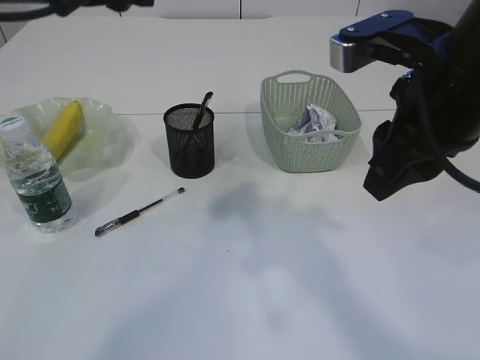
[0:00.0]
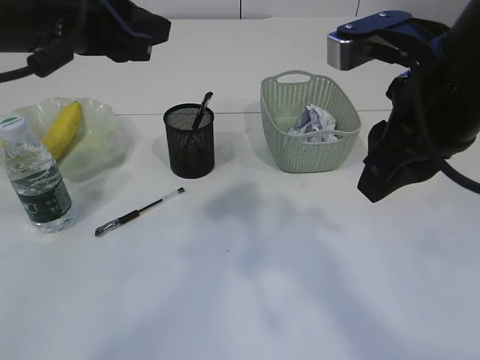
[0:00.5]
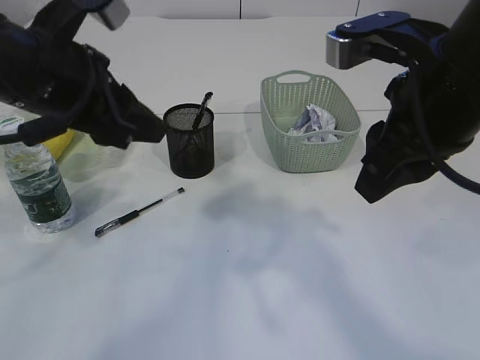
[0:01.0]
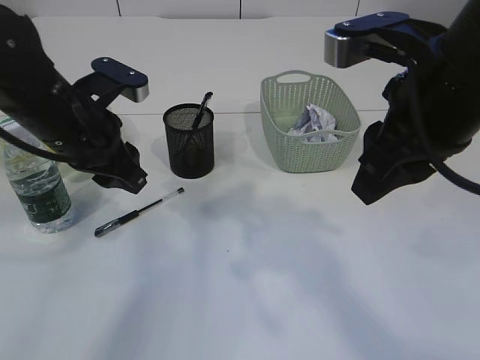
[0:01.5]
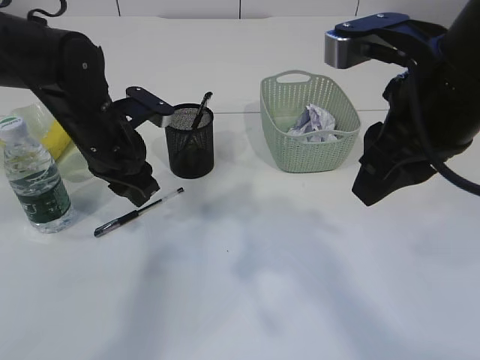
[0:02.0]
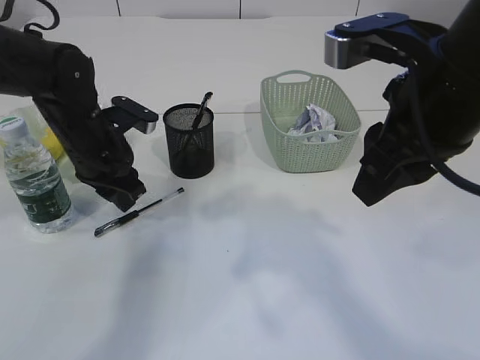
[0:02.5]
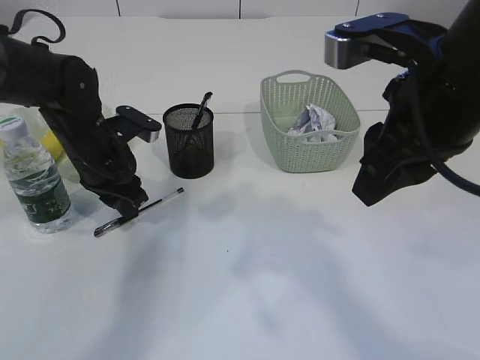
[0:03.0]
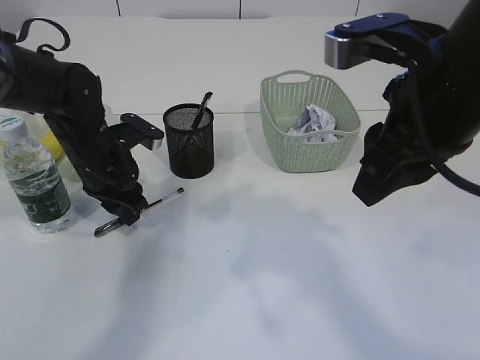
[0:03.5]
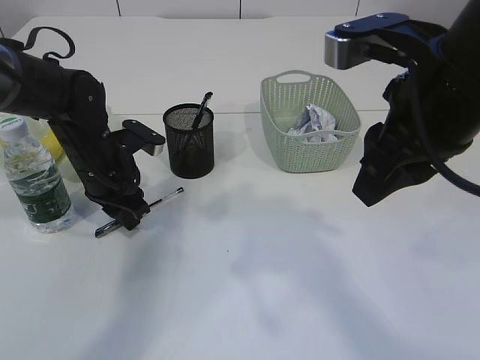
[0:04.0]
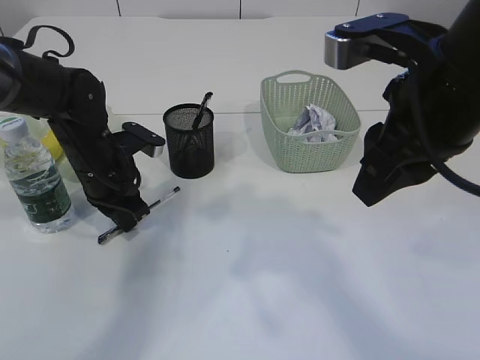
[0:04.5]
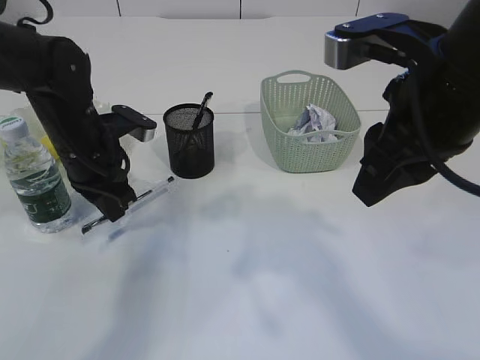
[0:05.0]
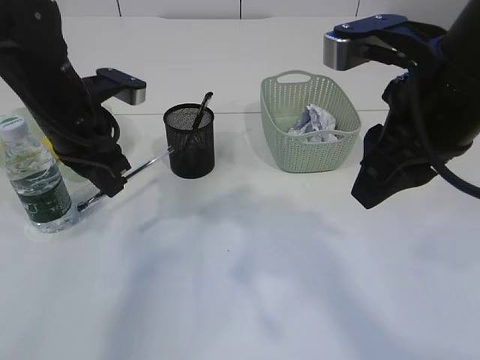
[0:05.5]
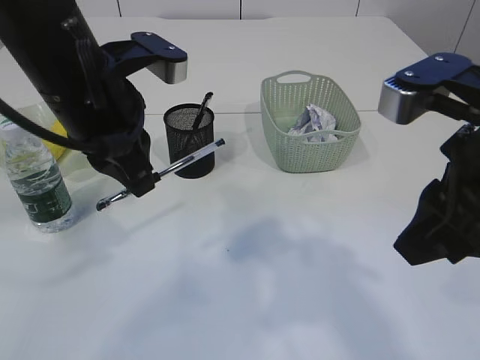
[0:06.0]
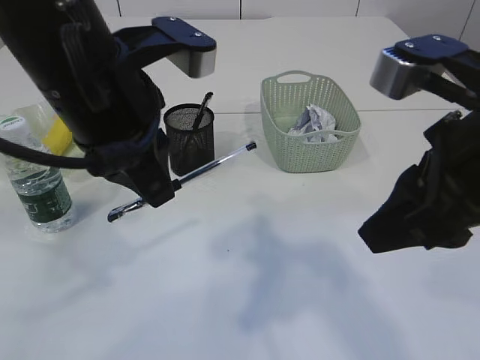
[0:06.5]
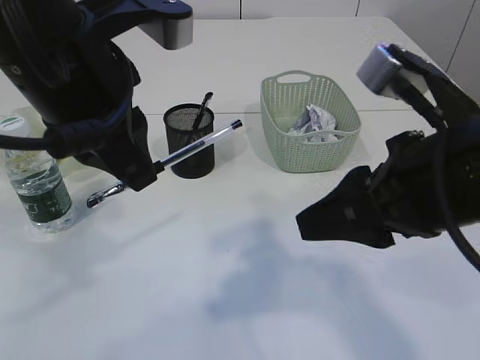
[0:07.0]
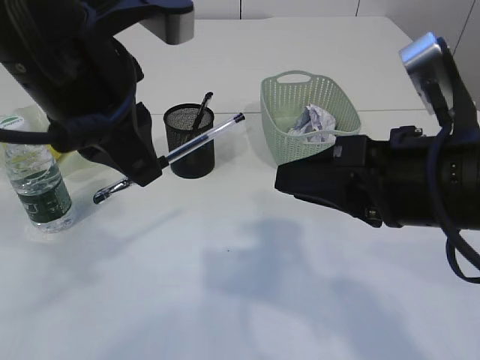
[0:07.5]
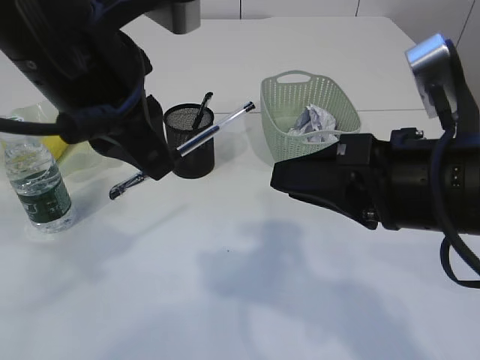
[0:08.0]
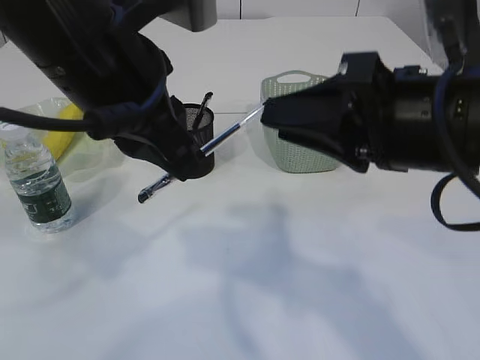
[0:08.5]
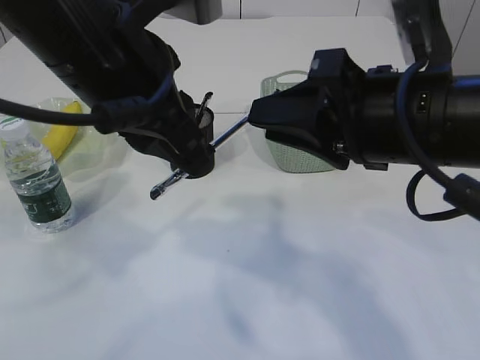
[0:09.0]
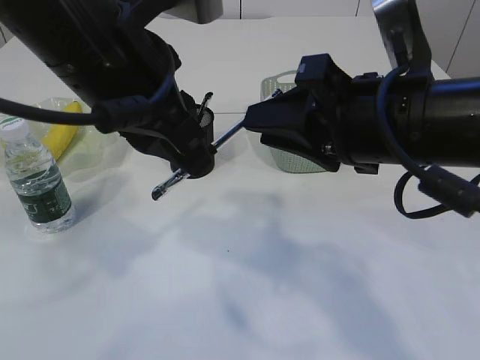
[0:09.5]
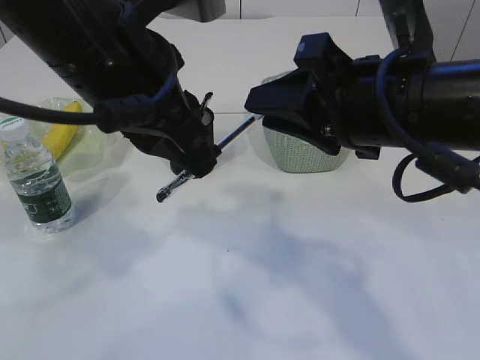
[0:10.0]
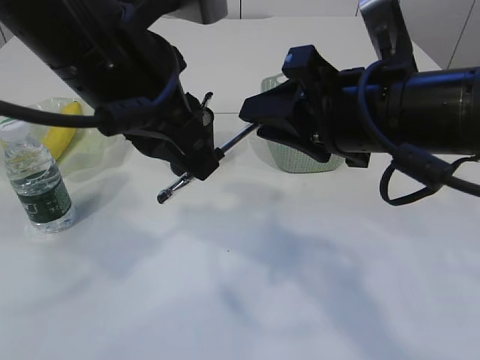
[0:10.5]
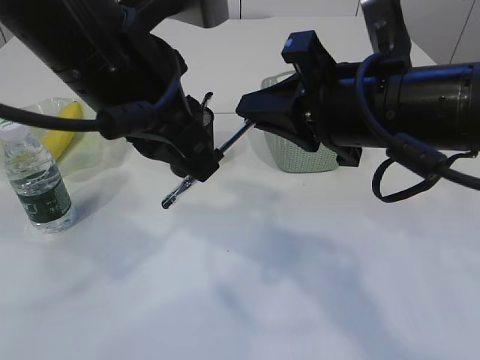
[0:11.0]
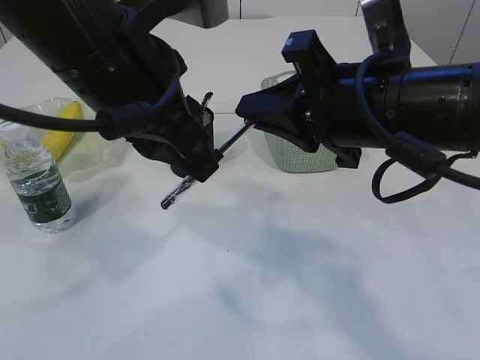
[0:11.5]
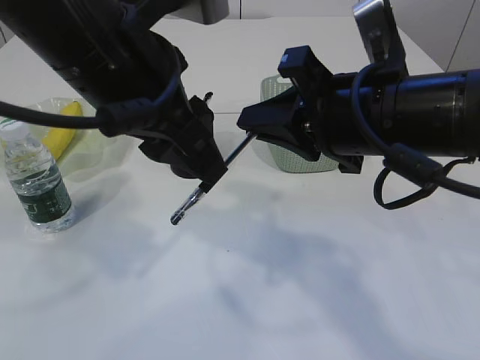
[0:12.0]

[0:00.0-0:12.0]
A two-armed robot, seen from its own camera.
Step, 0:00.0 to 0:05.5: Pick up the pen with left arm.
0:00.0 to 0:02.0: The left gripper travels downward by about 15 cm.
0:02.0 to 0:04.0: The left gripper shifts approximately 5 cm downward.
0:04.0 to 0:06.0: The left gripper goes about 20 cm upward and backward, and closes its fingers; the right gripper heads backward, covering some 5 cm.
0:06.0 to 0:08.0: The right gripper changes place by roughly 5 cm. The left gripper goes some 10 cm backward and upward.
0:08.0 to 0:10.0: The right gripper heads forward, covering some 5 cm.
0:10.0 to 0:12.0: The left gripper opens.

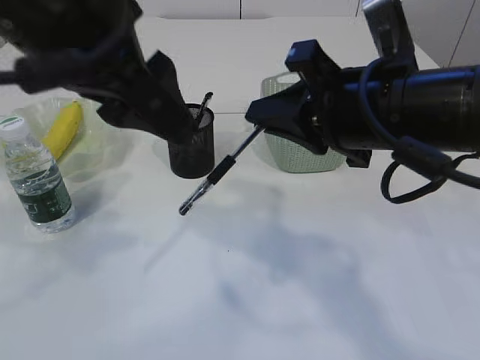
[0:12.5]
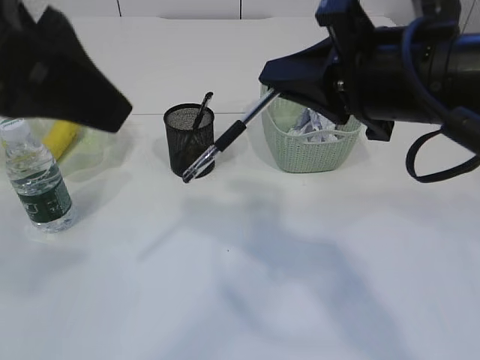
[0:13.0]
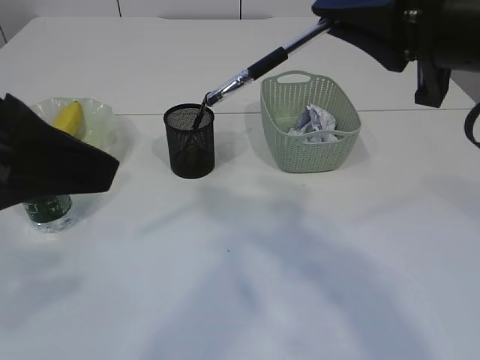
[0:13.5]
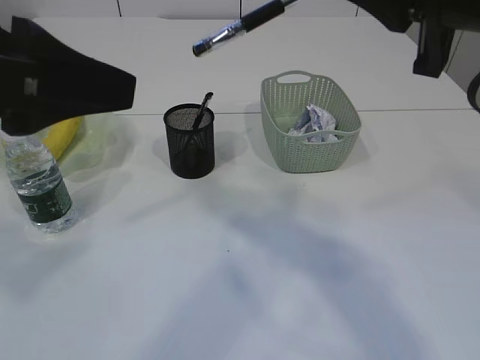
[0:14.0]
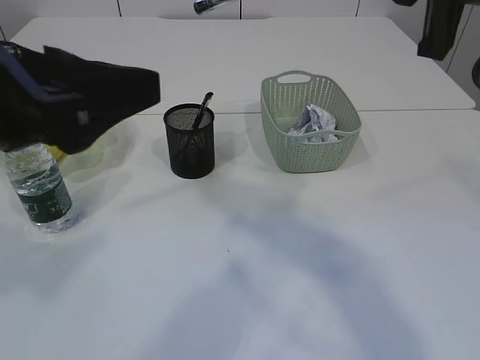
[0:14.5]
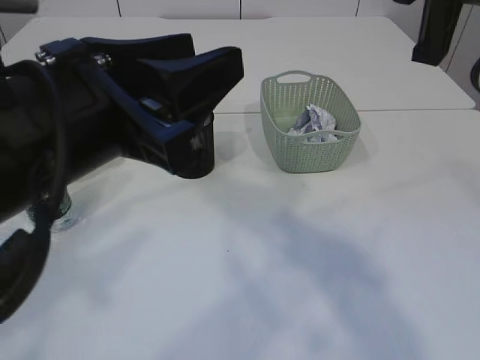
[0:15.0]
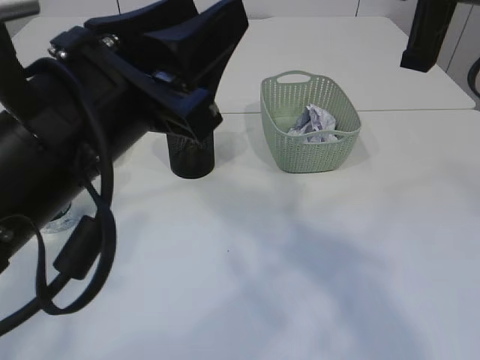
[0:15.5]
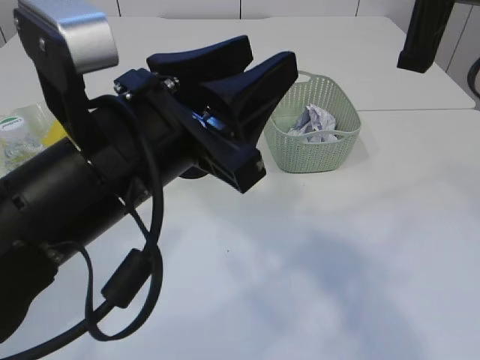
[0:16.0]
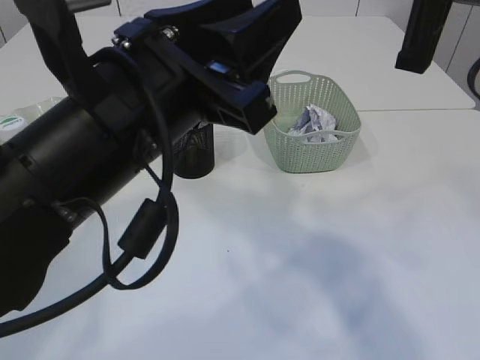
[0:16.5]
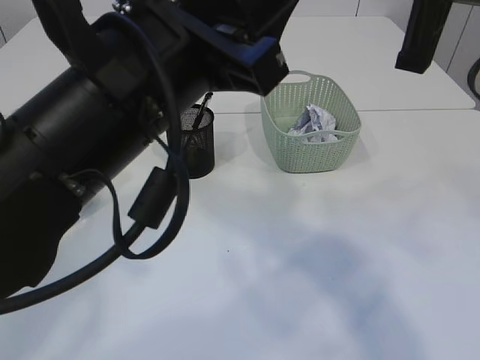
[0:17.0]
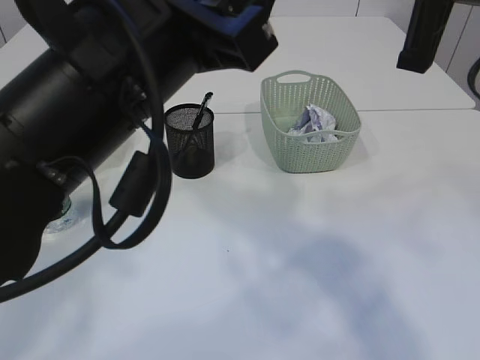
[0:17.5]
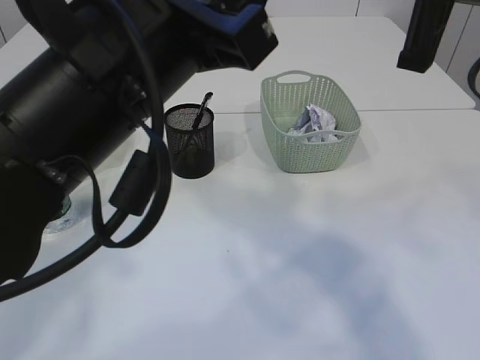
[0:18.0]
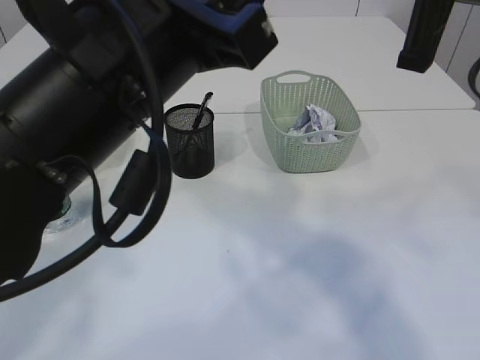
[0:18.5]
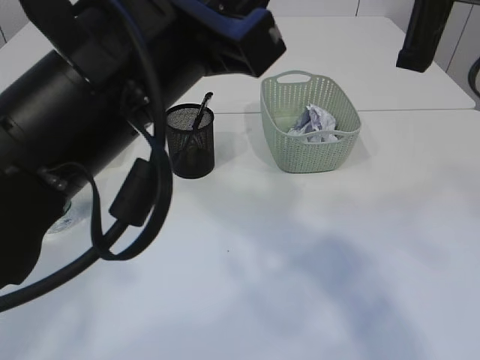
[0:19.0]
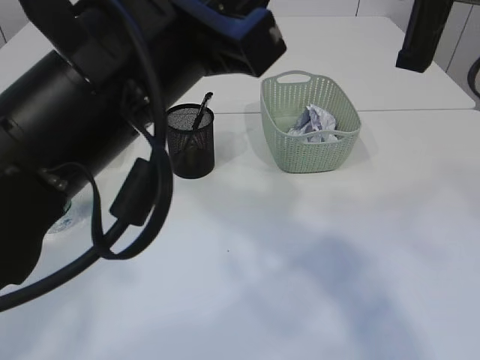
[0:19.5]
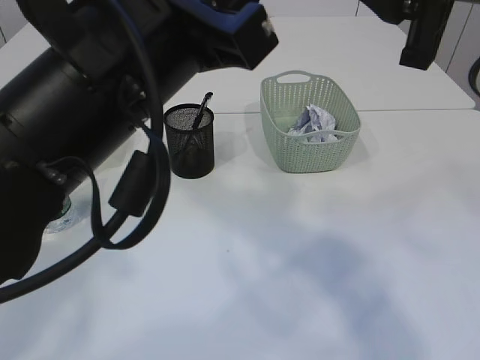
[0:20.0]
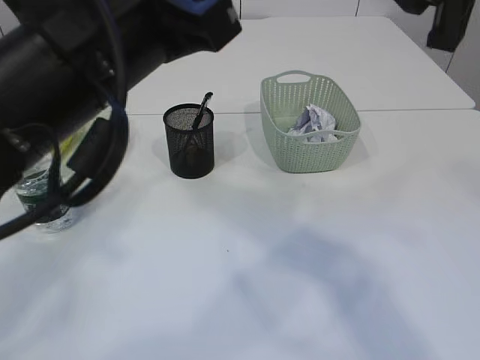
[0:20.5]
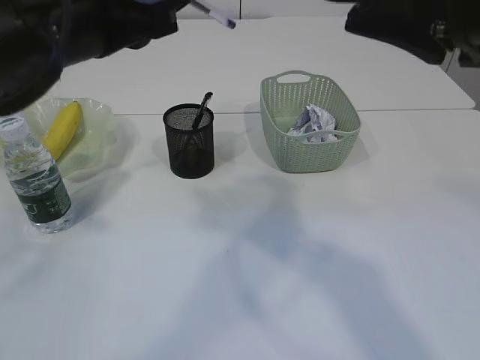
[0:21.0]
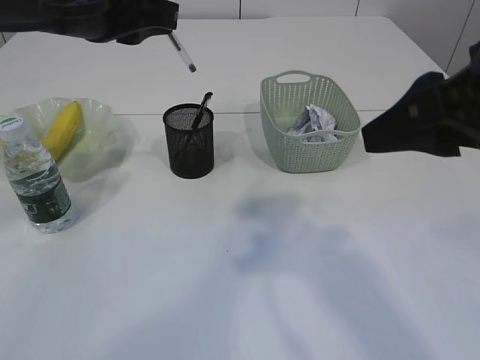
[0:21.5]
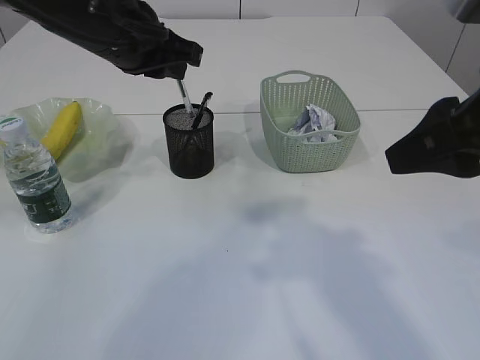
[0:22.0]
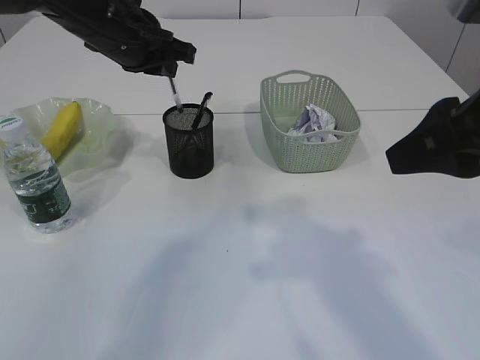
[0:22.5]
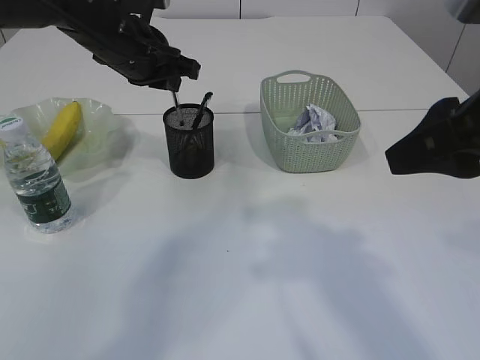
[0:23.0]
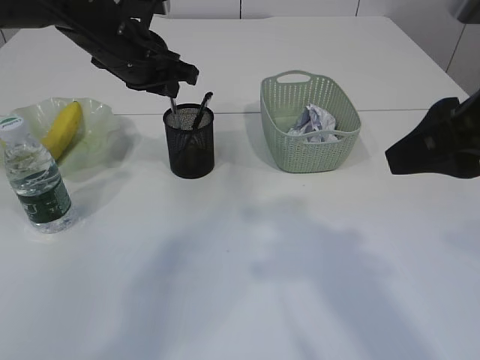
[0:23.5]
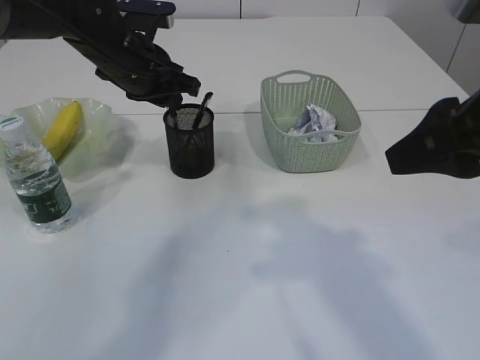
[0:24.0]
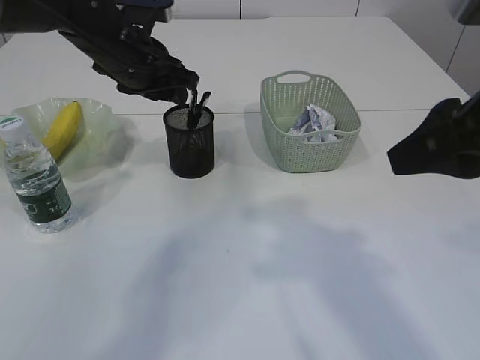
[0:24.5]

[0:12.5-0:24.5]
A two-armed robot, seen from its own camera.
Step, 0:13.0 to 0:20.5: transfer the pen to the left arm.
0:12.5 to 0:14.5: The left gripper is displaced backward and to the left by about 10 cm. The right gripper goes roughly 10 cm upward.
0:14.5 to 0:16.5: The left gripper goes some 10 cm to the right.
0:16.5 to 0:18.5: The grippers move only a little.
0:18.5 to 0:20.5: The right gripper opens.
0:20.5 to 0:22.5: The left gripper shifts some 20 cm forward. The right gripper travels downward by some 5 cm.
0:22.5 to 0:24.5: The left gripper opens its fingers.

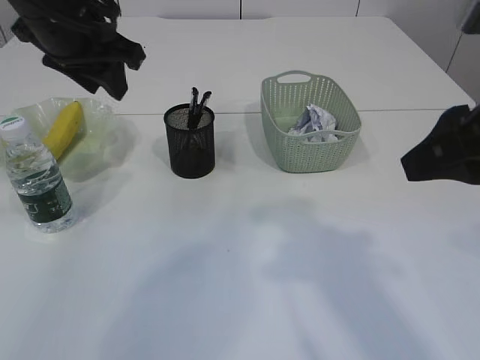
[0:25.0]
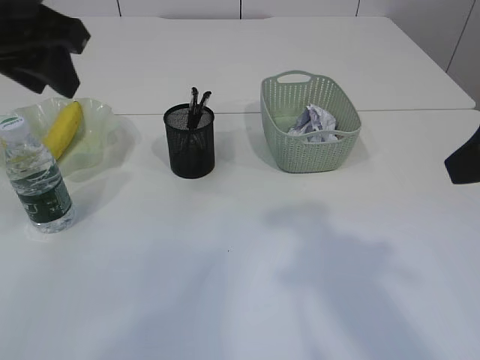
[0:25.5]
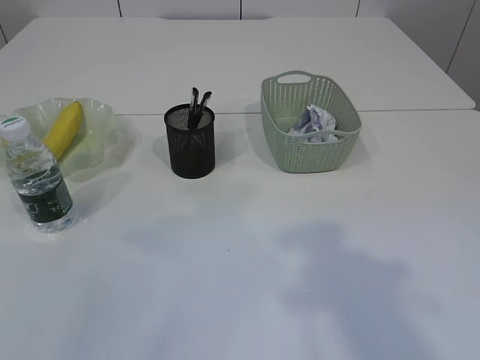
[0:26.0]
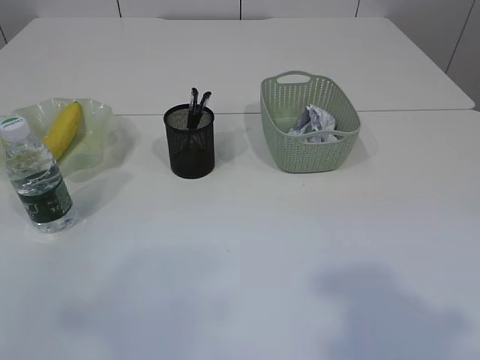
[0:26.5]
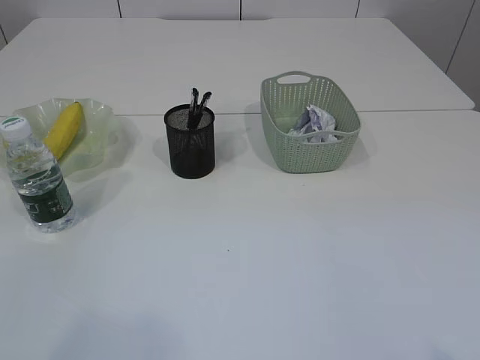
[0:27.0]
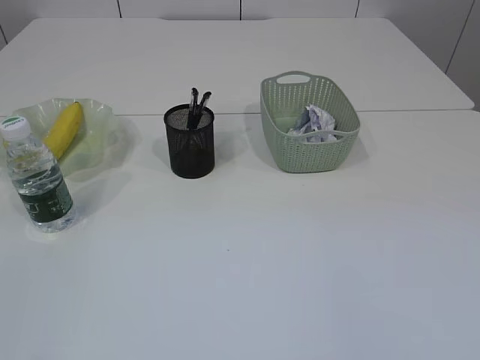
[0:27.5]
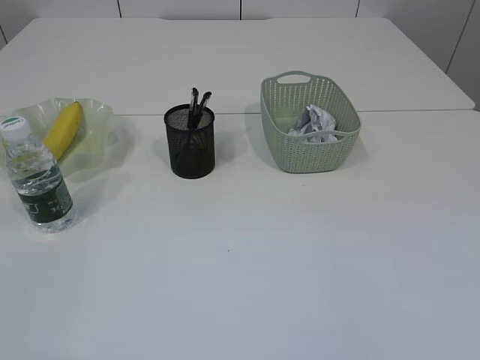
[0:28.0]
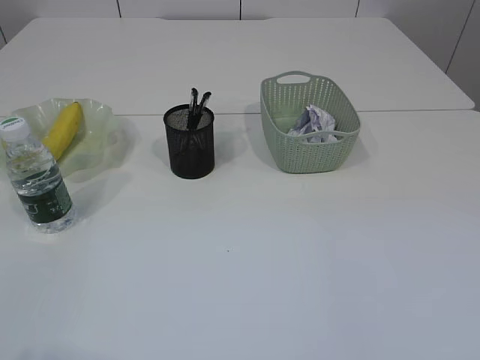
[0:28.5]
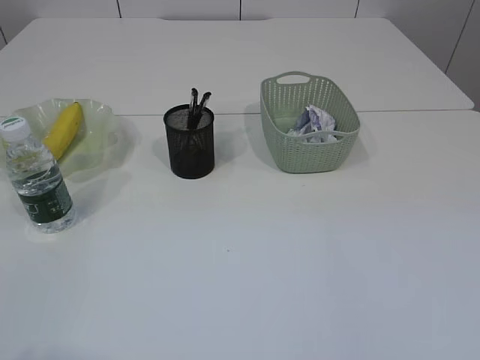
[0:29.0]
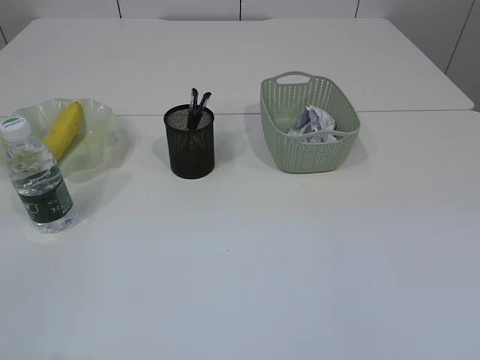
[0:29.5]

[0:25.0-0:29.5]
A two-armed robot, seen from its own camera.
0:25.0 to 0:27.0: The left gripper travels backward and to the left by about 40 cm; the right gripper goes some 20 cm backward.
